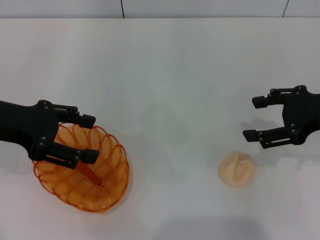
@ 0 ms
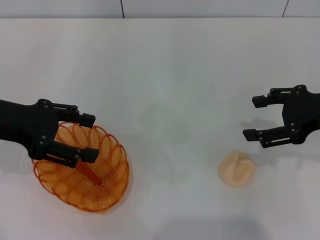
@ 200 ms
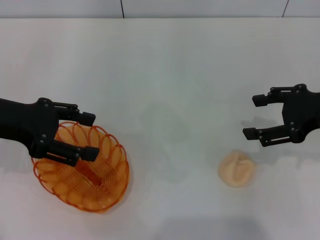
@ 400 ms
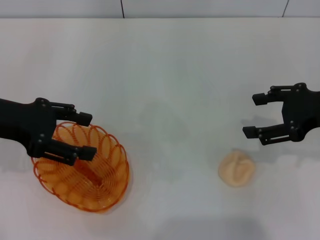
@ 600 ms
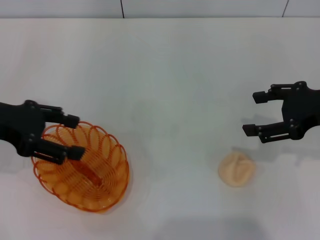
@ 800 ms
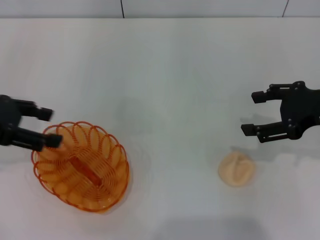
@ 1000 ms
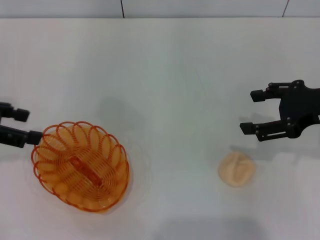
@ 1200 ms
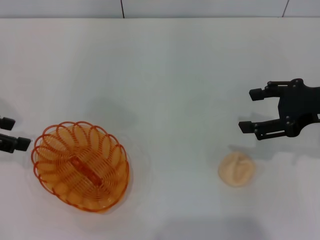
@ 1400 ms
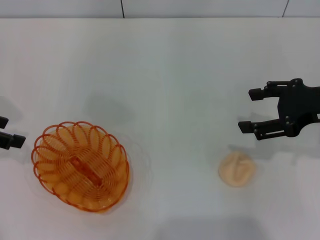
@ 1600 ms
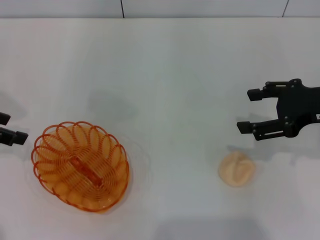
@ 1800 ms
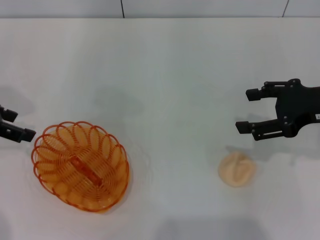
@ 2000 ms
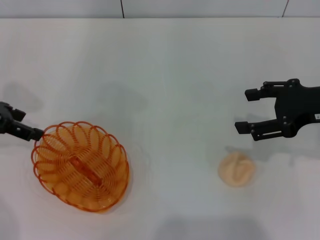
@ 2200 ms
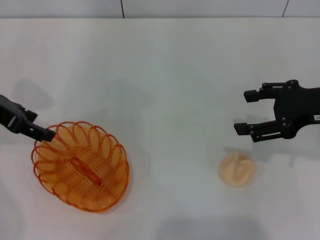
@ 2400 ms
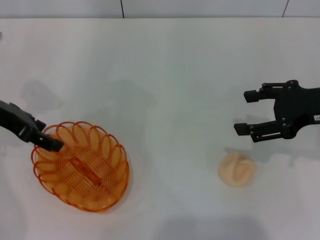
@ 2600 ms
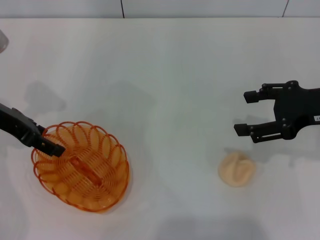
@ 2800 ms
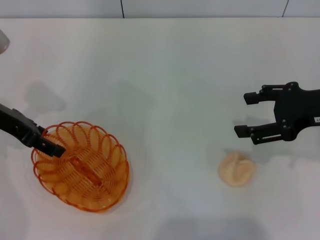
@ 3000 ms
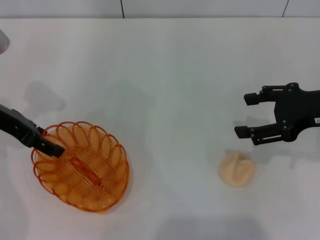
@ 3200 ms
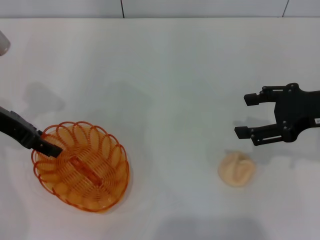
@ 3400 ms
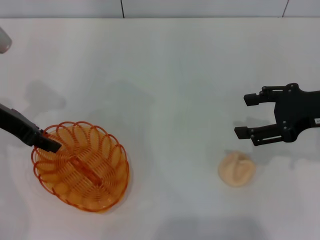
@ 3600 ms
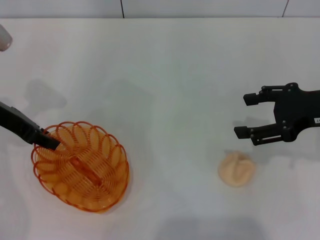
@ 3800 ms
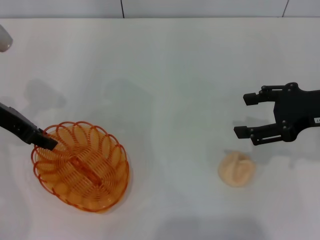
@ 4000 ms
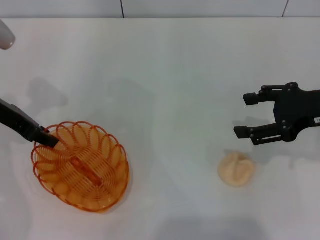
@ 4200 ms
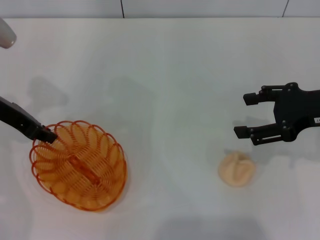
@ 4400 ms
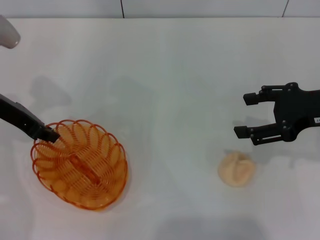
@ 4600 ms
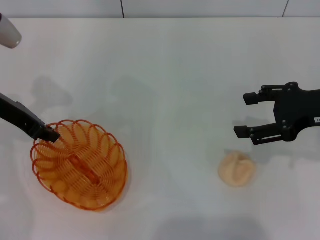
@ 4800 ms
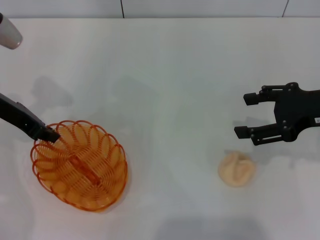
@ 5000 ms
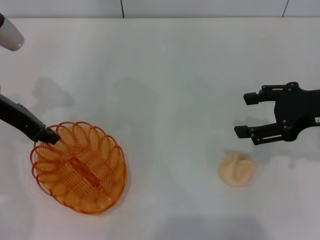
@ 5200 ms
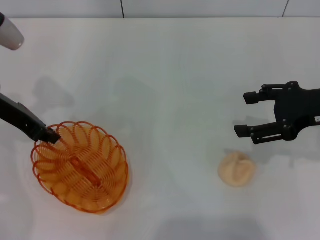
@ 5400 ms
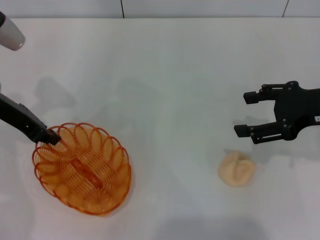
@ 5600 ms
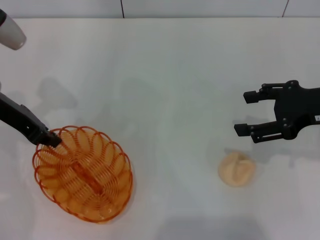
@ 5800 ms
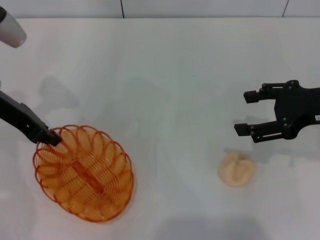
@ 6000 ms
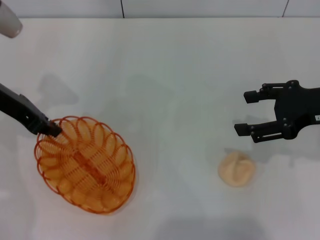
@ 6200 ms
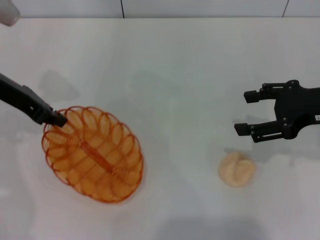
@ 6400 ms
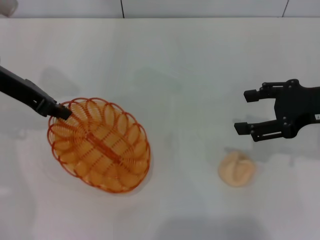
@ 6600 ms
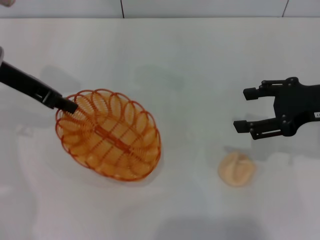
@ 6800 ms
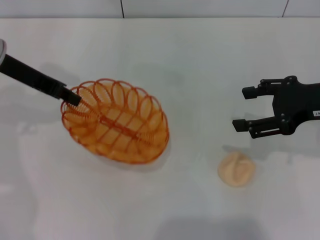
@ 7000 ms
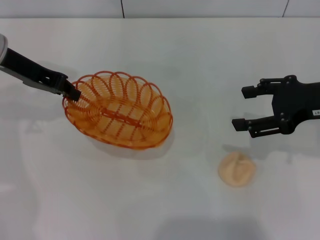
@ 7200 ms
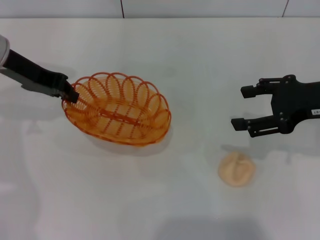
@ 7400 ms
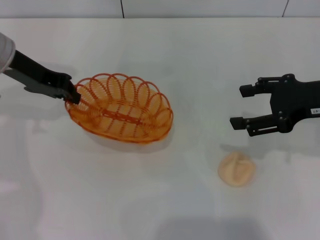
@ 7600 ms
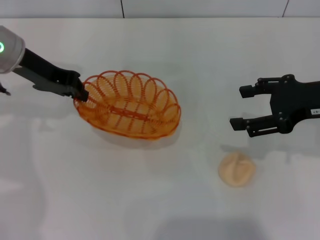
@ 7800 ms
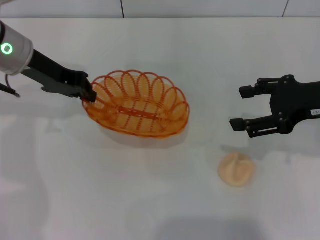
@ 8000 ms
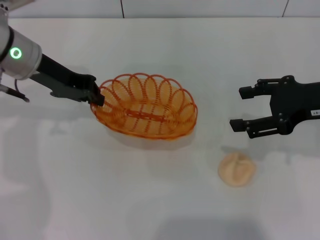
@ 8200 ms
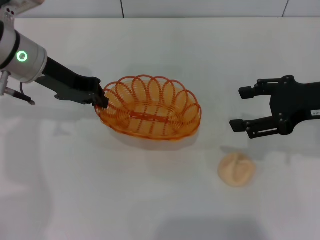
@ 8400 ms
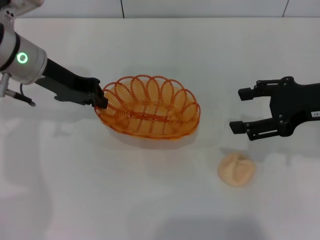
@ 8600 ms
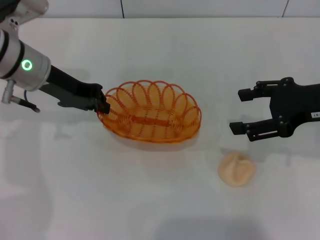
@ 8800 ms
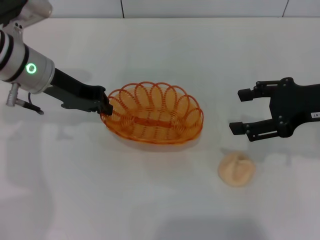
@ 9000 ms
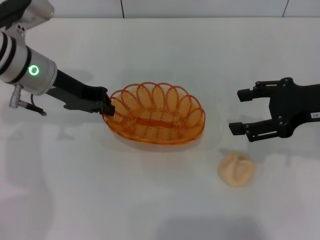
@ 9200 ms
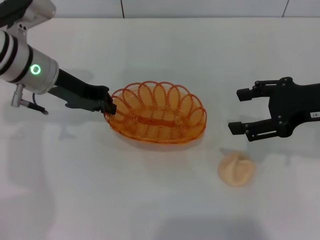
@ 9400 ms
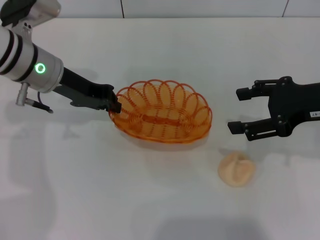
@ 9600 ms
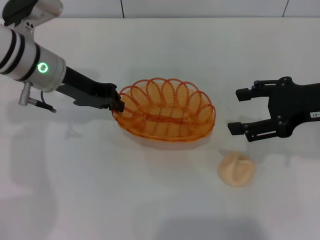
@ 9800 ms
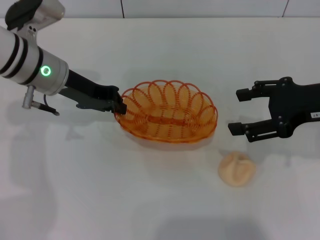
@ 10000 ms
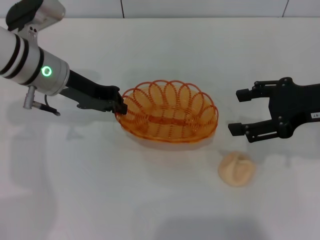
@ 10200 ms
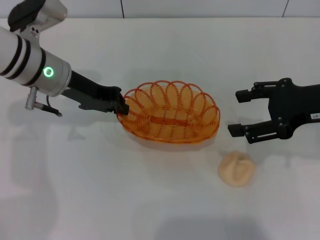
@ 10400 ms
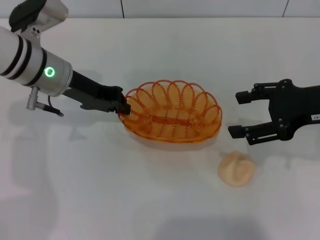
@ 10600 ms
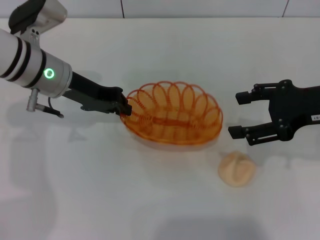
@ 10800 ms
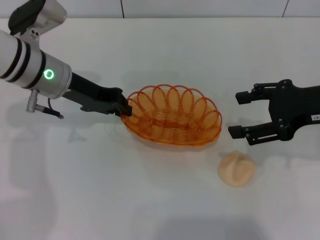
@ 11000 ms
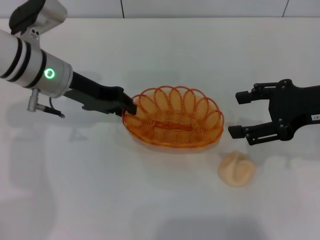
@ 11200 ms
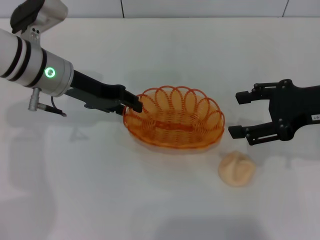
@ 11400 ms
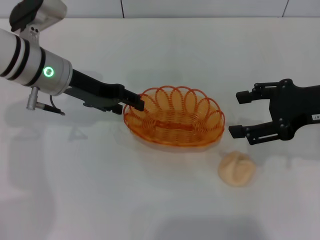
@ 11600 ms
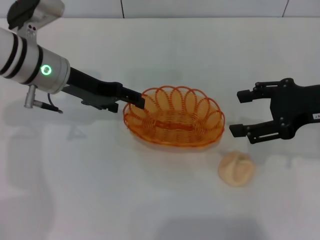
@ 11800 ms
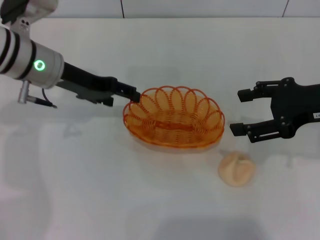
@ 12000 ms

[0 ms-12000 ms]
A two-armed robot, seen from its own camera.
Step, 0 ms to 6800 ms: Pick up the basket with the left gripper.
0 ms to 1600 ms: The left gripper is displaced to the left by approximately 10 cm.
1600 ms to 3000 ms: The left gripper travels to the right by some 5 cm.
3000 ms to 4400 ms: The left gripper closes up.
4400 ms to 6000 ms: The grippers stay close to where they were, moving slightly.
7600 ms to 9000 ms: The left gripper moves roughly 5 cm.
9000 ms to 10400 ms: There are only small adjustments of the grippers.
10400 ms to 12000 ms: The left gripper opens its fingers.

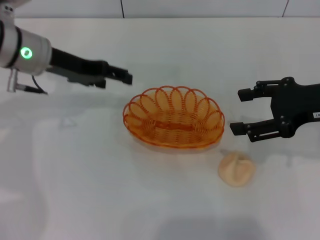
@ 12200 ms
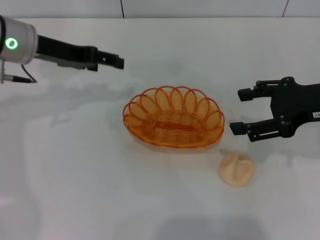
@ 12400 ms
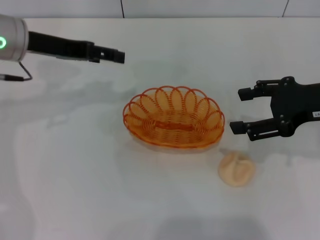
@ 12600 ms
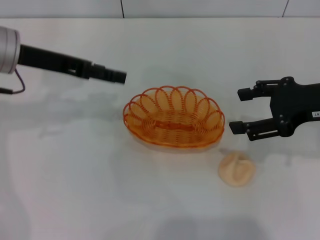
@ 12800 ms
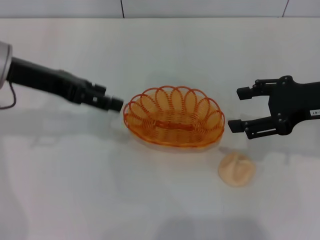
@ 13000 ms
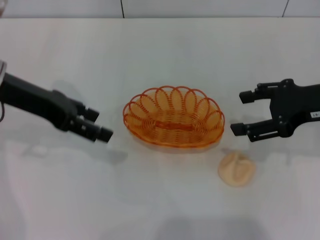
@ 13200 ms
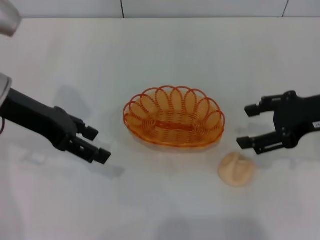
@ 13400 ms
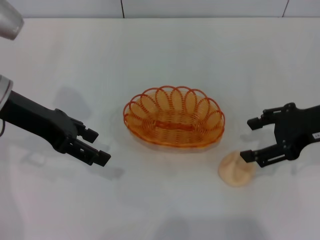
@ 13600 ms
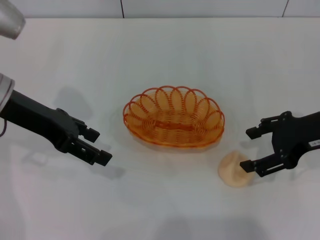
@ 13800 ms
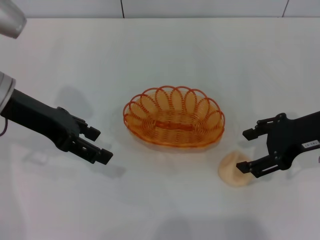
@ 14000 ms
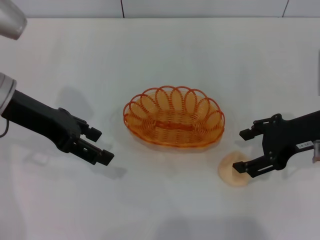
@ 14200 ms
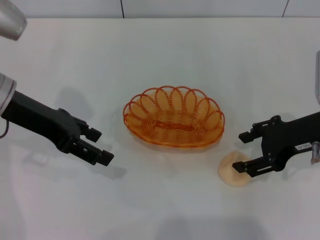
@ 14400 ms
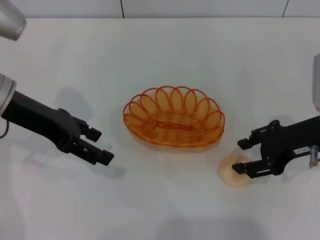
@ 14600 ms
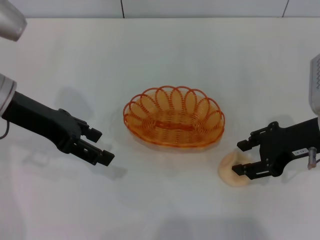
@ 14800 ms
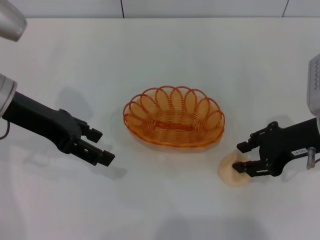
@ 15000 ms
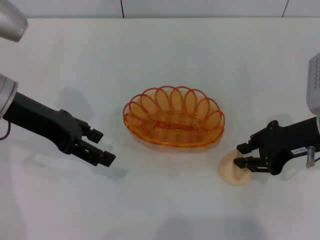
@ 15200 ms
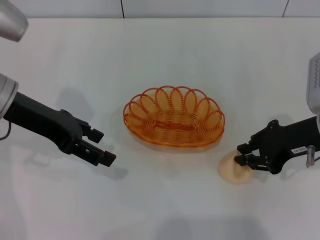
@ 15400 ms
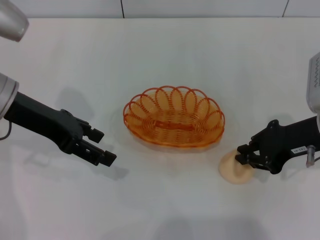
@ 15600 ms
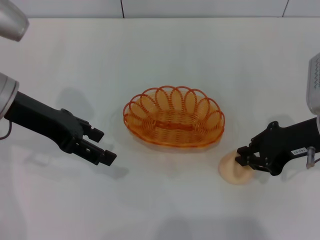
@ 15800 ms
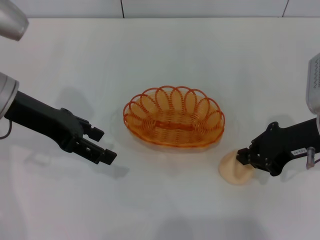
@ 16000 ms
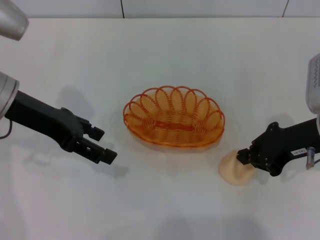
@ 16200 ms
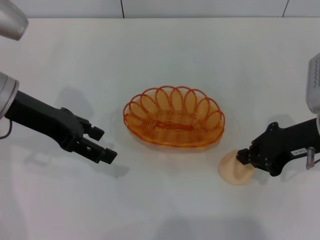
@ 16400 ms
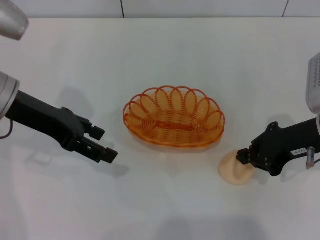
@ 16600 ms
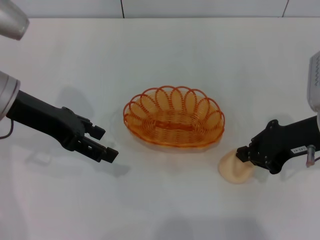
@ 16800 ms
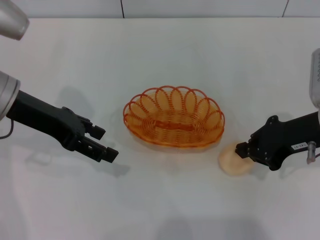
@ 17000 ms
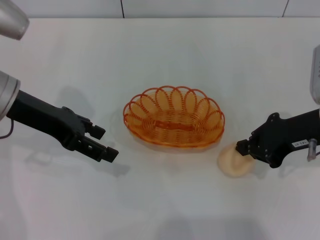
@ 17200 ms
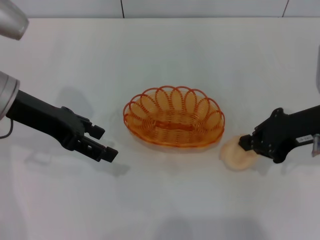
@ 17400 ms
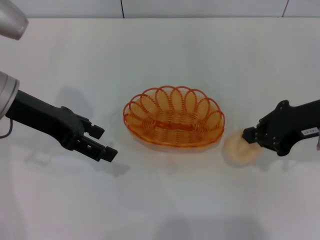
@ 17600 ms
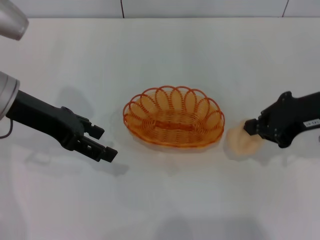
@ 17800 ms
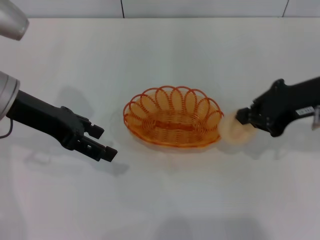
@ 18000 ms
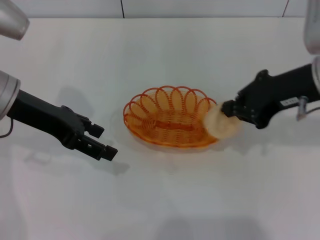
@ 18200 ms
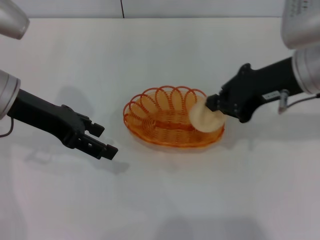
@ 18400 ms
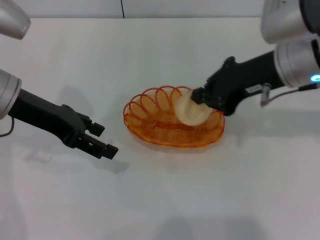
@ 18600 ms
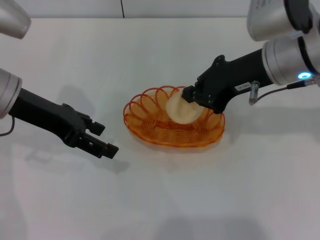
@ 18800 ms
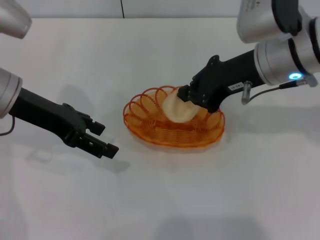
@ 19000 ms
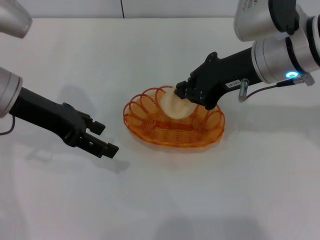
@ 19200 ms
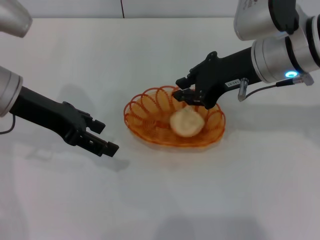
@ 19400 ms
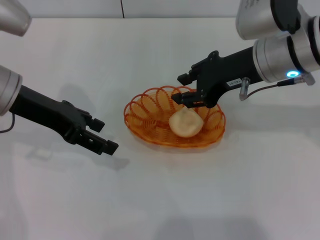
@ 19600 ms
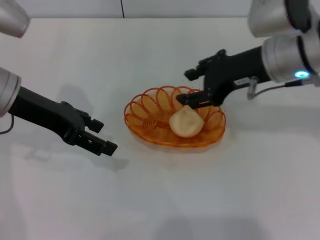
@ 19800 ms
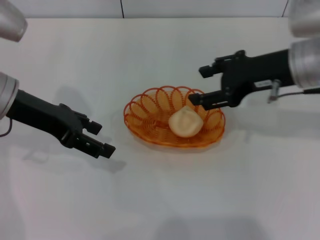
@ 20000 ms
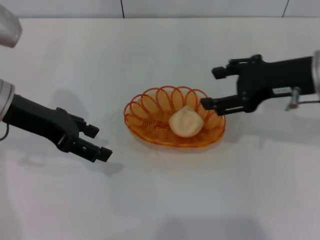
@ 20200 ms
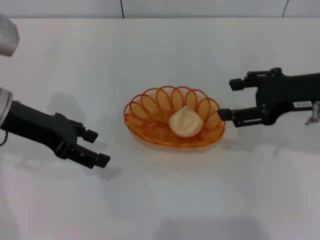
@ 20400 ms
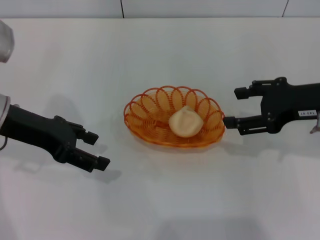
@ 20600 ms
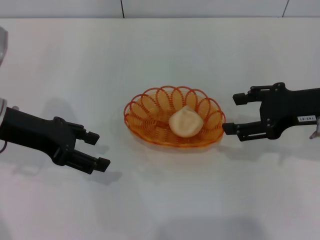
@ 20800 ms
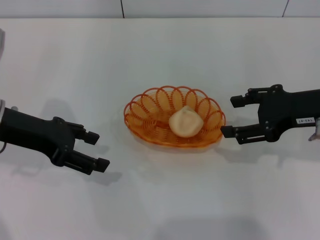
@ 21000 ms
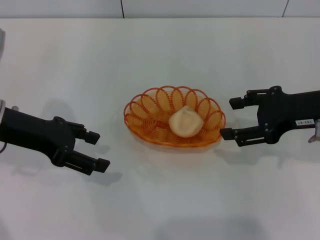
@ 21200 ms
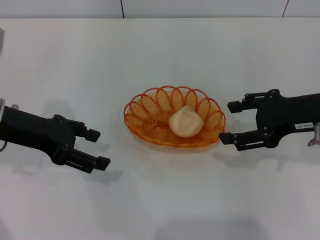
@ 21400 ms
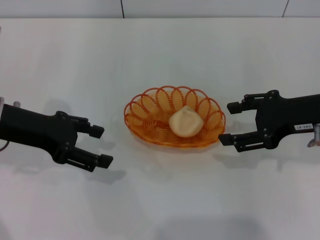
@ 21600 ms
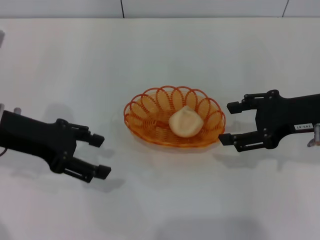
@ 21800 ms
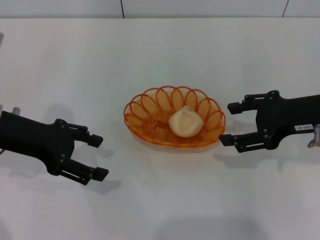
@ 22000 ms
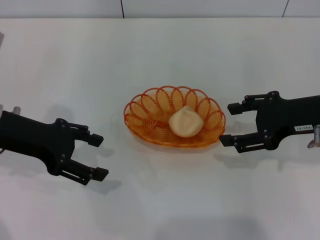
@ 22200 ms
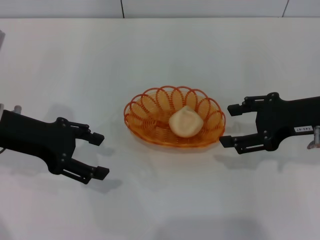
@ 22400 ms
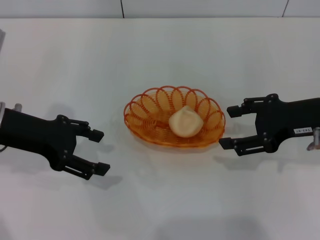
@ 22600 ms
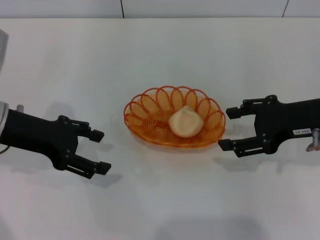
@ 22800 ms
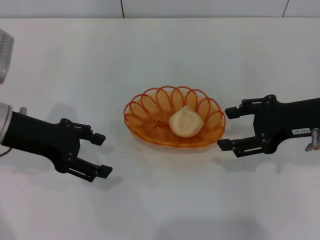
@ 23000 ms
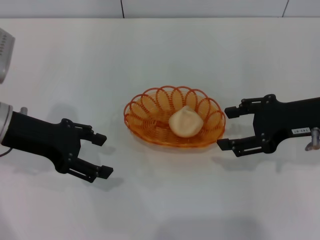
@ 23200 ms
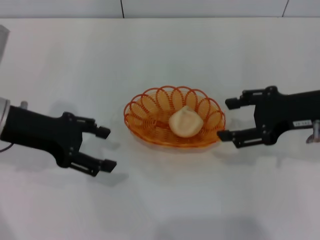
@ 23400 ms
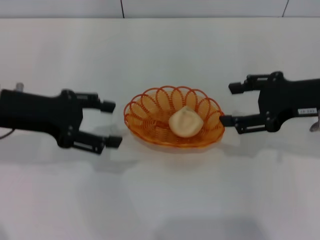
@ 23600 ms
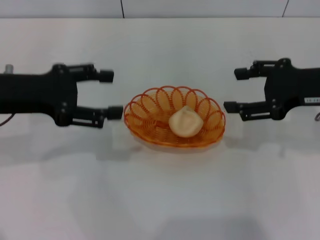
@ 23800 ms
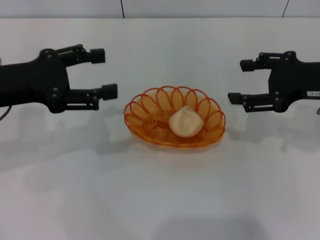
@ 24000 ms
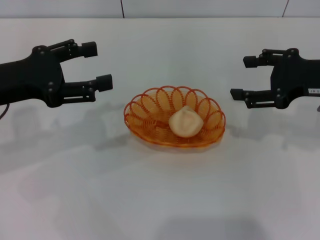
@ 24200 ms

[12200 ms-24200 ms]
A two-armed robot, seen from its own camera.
Step, 12600 ms to 18800 ms: Pick up the egg yolk pastry with the right gripper.
Step, 19000 ms to 21000 ms: Place the egg yolk pastry into the basket with the right gripper.
12200 ms to 13800 ms: The left gripper moves backward, roughly 5 cm.
13800 ms to 15200 ms: The right gripper closes.
15200 ms to 16600 ms: The right gripper closes up.
16600 ms to 18200 ms: The right gripper shifts roughly 5 cm upward.
18200 ms to 19800 ms: The right gripper changes place by some 5 cm, and opens.
19800 ms to 21200 ms: The right gripper moves to the right, roughly 10 cm.
21200 ms to 22600 ms: The grippers stay close to where they were, moving slightly.
